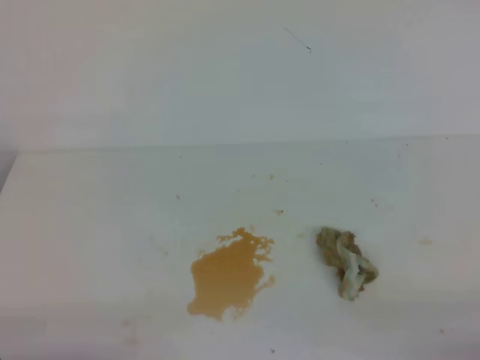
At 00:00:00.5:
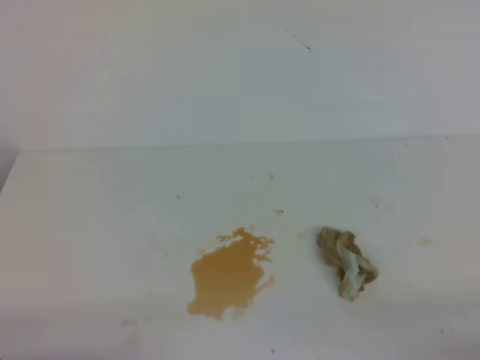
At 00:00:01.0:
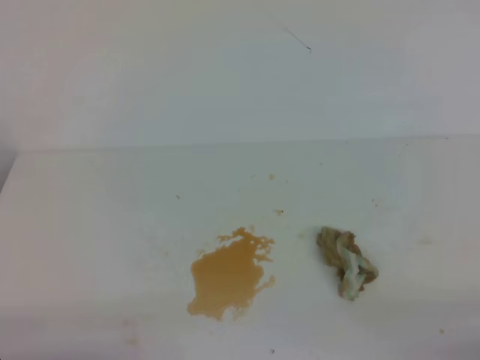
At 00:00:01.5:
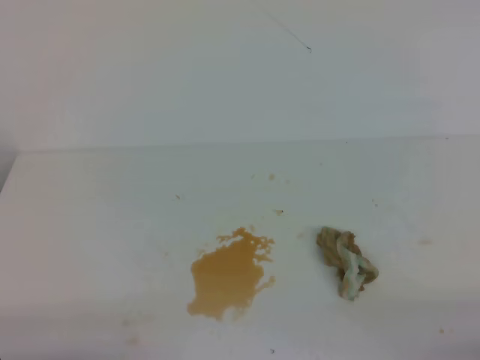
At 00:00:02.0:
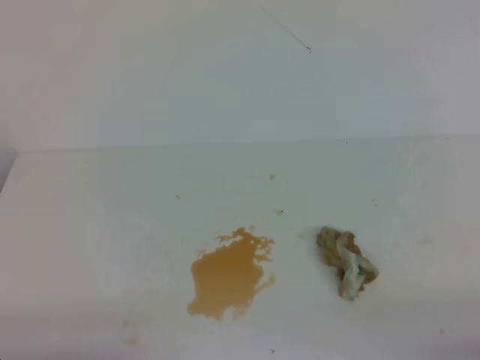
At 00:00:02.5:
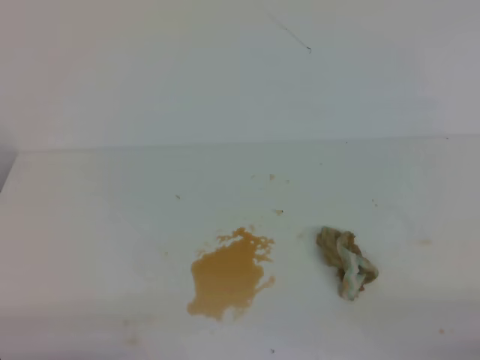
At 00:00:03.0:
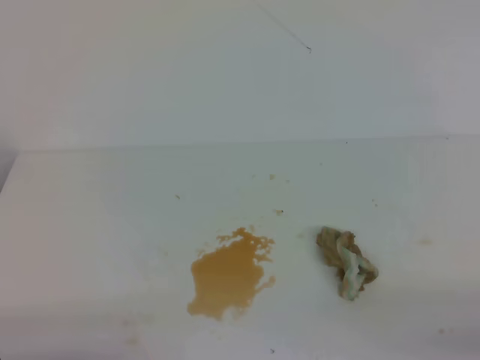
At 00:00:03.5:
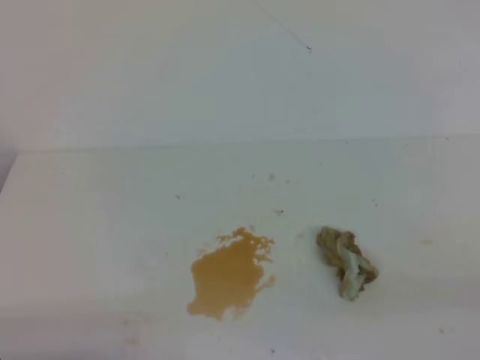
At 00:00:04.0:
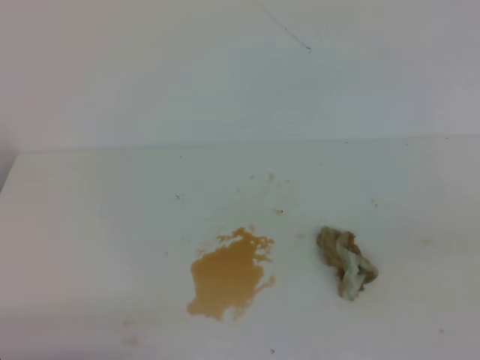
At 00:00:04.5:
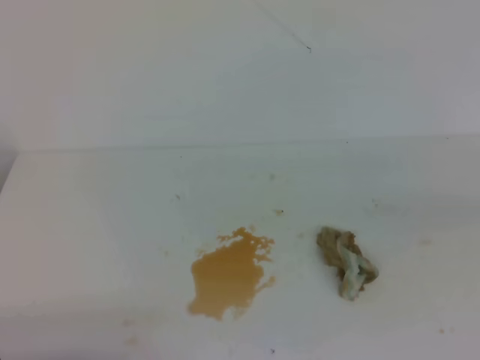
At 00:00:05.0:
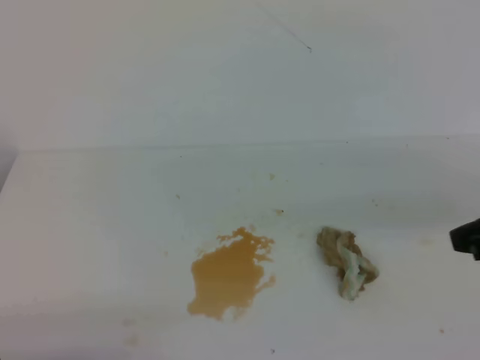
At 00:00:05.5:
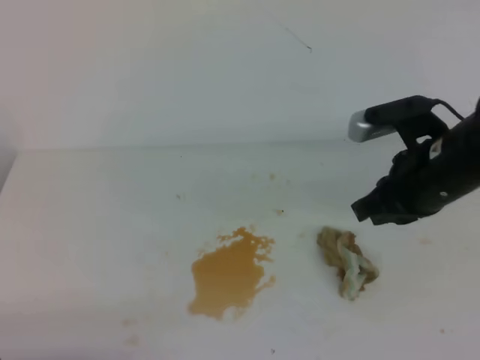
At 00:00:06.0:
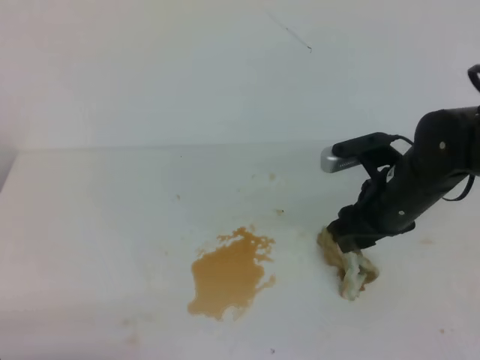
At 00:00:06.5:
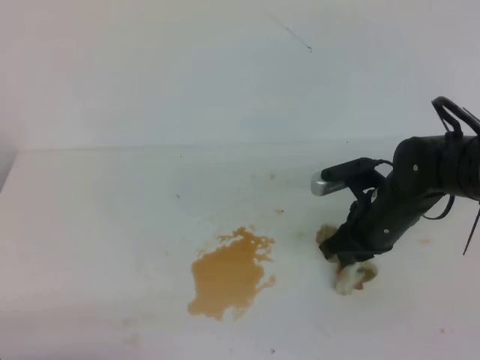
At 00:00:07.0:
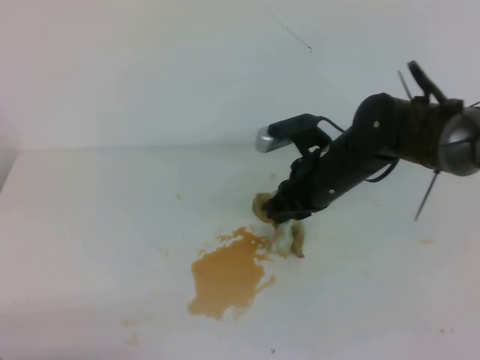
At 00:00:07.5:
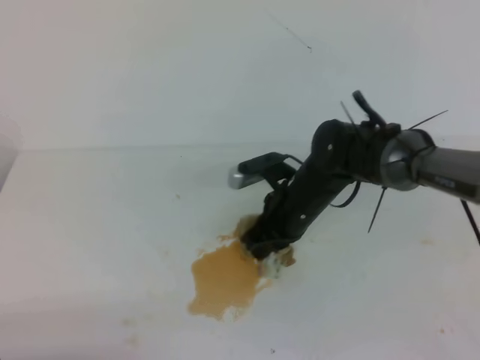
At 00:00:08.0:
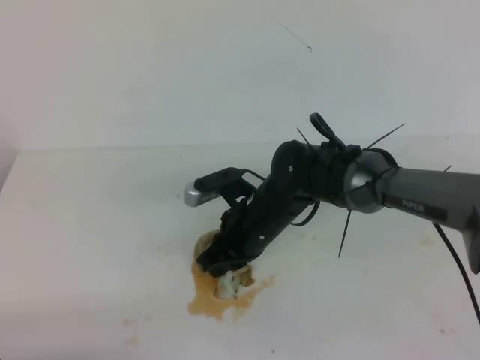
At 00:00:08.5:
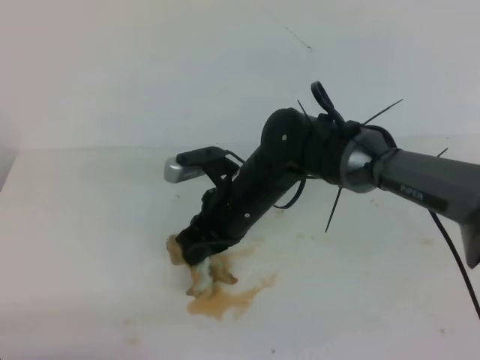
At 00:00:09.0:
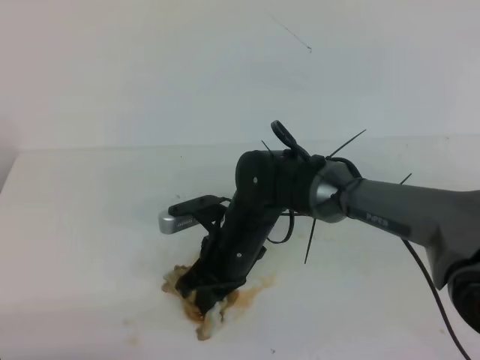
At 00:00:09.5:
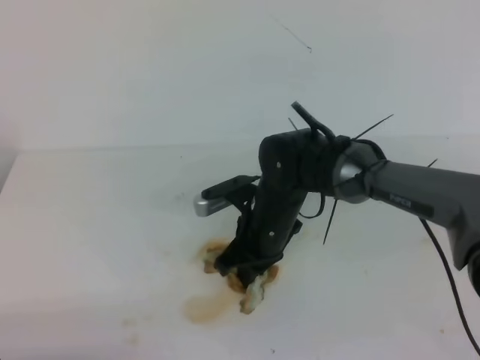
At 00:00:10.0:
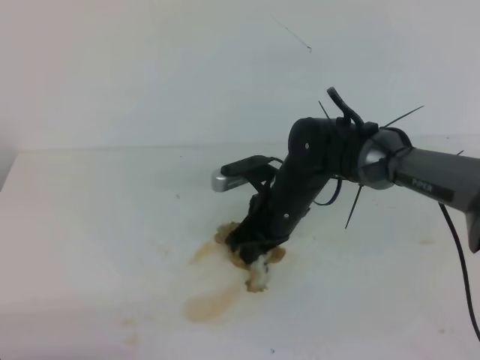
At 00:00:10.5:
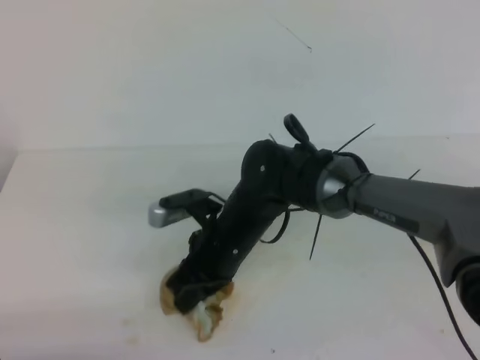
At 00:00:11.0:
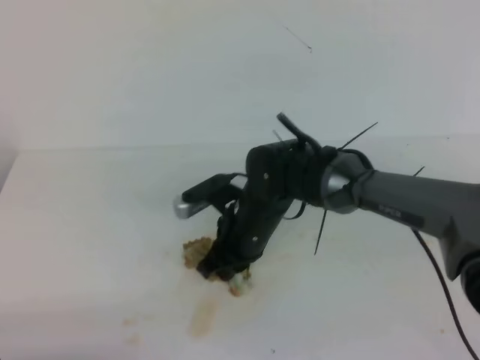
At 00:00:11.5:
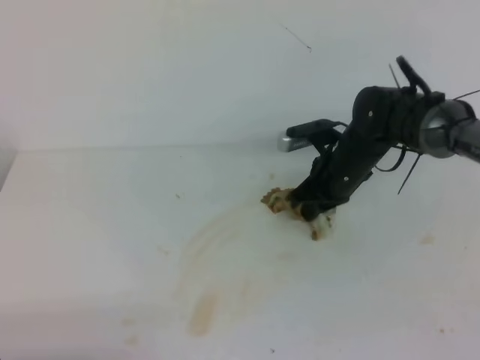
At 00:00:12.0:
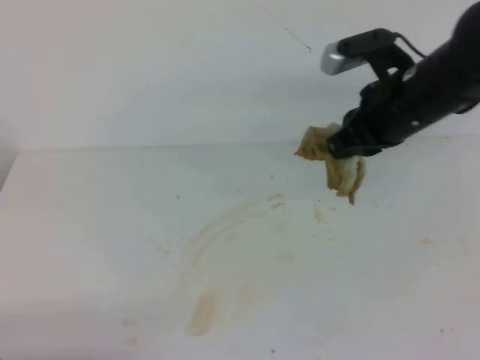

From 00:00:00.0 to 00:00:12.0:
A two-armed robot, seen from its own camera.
From 00:00:00.0 to 00:00:02.0: Both grippers stay about where they are.
From 00:00:04.0 to 00:00:06.0: The right gripper goes about 35 cm forward, to the left and downward, and opens up.
From 00:00:06.0 to 00:00:08.0: The right gripper heads to the left, covering about 15 cm, and closes up.
From 00:00:08.0 to 00:00:10.0: The grippers move only a little.
From 00:00:10.0 to 00:00:12.0: The right gripper shifts about 20 cm upward and to the right.

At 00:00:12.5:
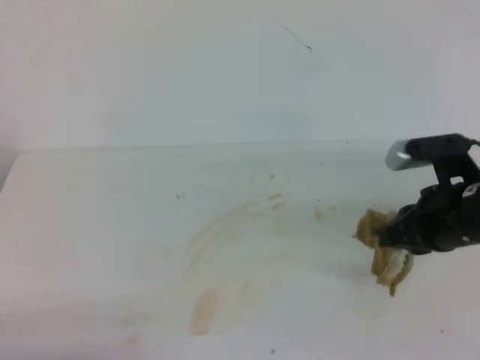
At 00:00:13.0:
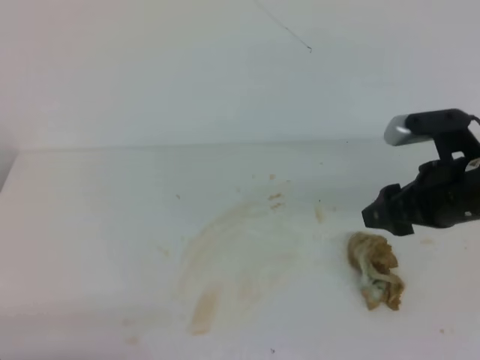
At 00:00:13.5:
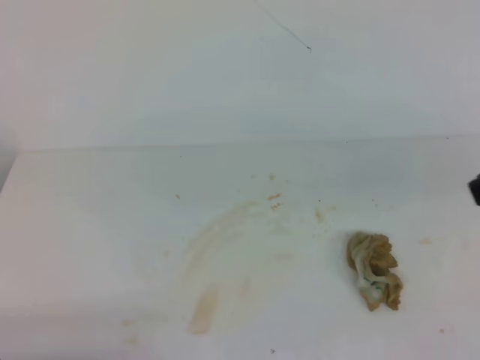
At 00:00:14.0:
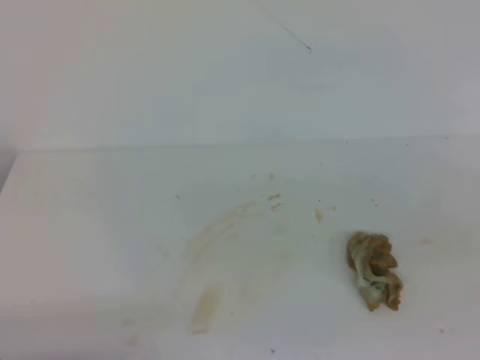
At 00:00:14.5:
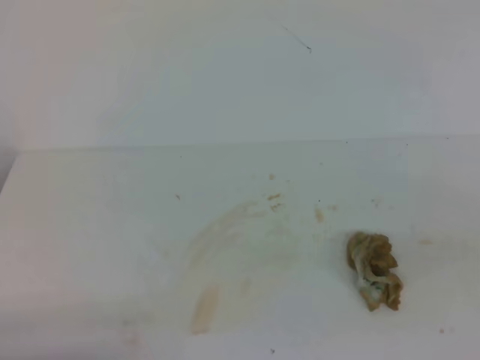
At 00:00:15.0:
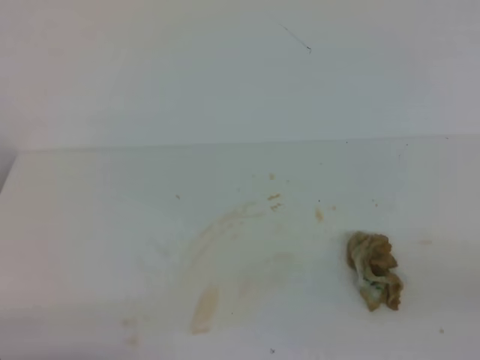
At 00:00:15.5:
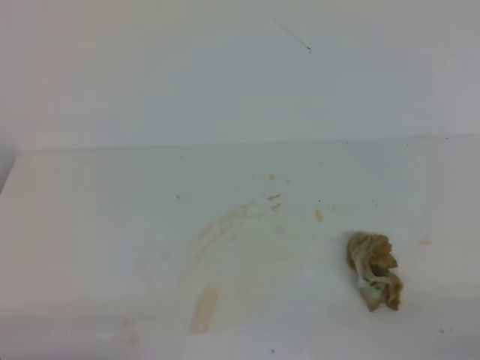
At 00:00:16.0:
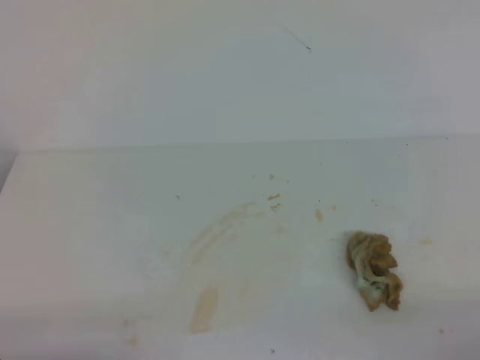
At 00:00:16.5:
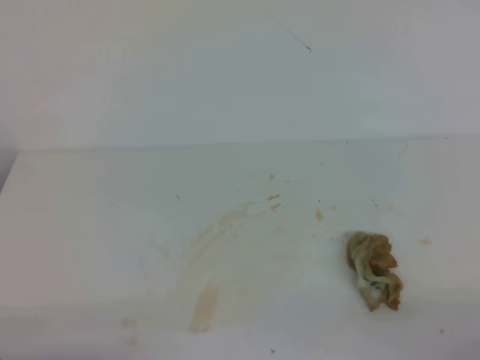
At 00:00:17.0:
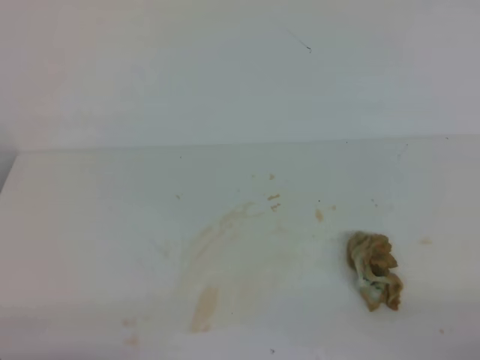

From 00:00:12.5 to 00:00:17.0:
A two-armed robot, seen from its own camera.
From 00:00:12.5 to 00:00:14.5: The right gripper goes approximately 25 cm backward and upward, and opens, then closes once more.
